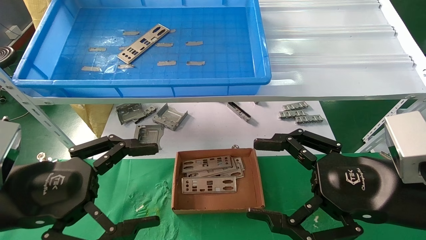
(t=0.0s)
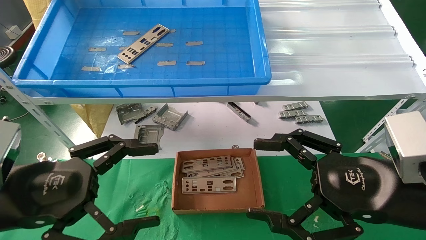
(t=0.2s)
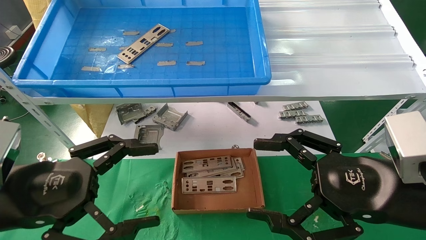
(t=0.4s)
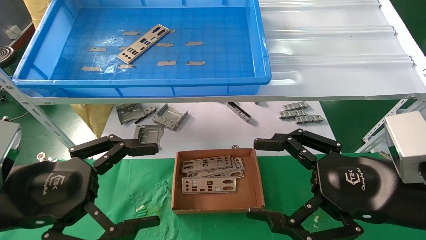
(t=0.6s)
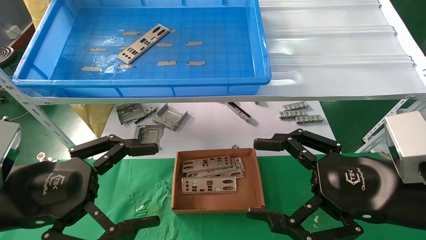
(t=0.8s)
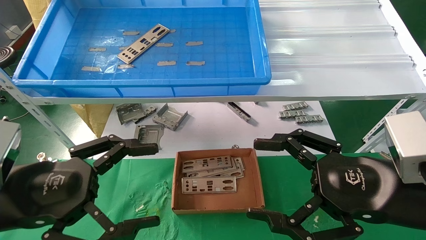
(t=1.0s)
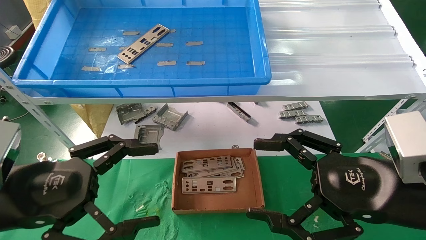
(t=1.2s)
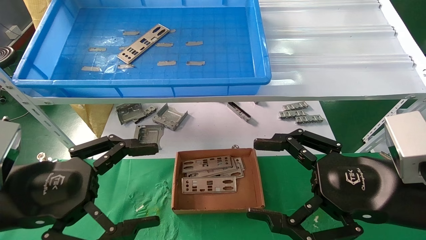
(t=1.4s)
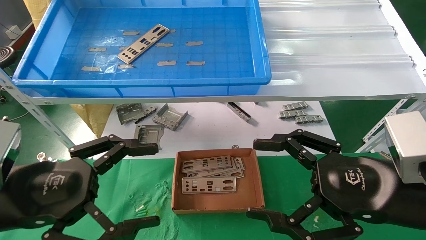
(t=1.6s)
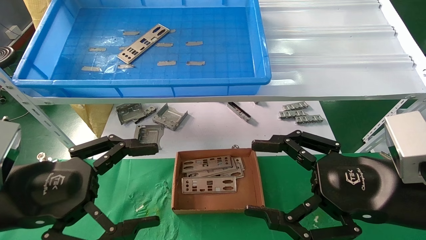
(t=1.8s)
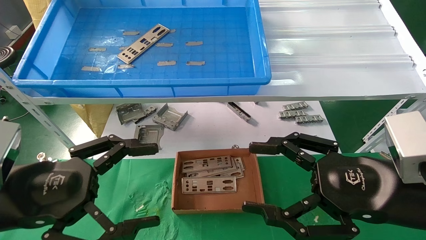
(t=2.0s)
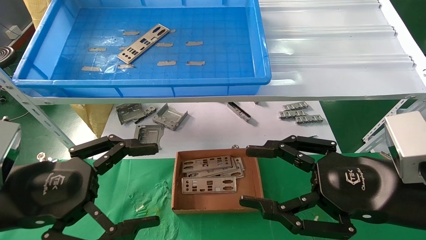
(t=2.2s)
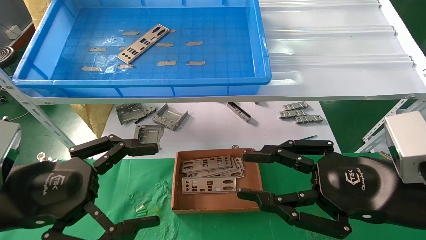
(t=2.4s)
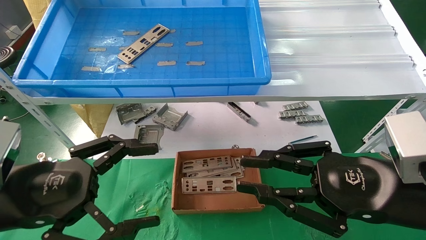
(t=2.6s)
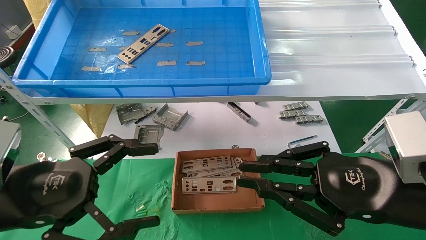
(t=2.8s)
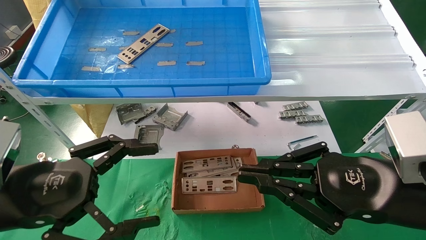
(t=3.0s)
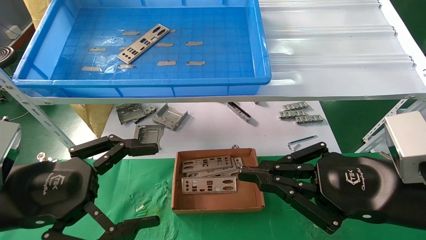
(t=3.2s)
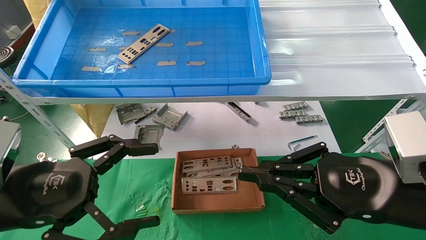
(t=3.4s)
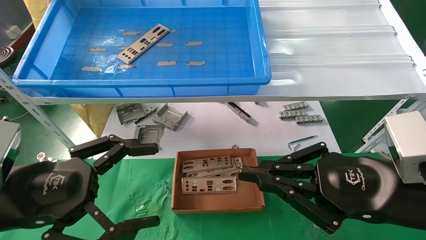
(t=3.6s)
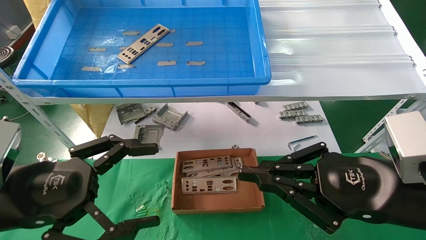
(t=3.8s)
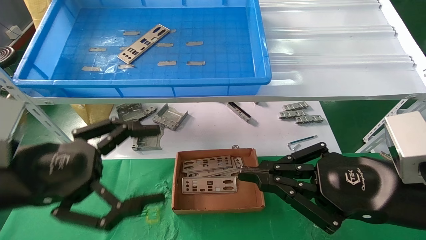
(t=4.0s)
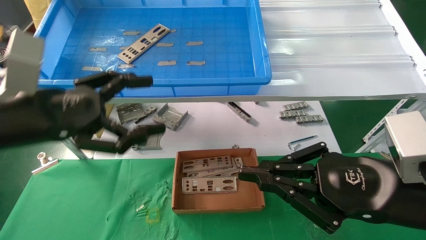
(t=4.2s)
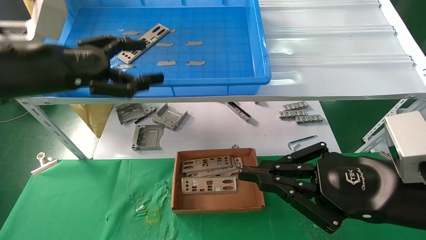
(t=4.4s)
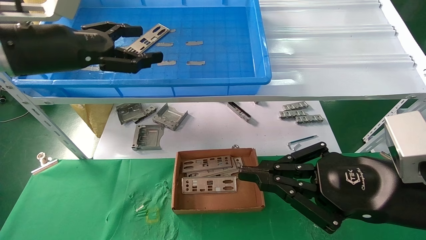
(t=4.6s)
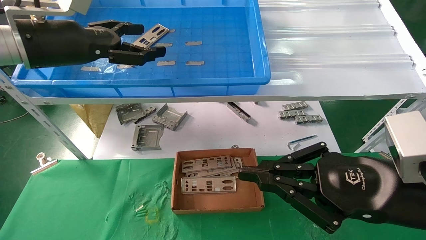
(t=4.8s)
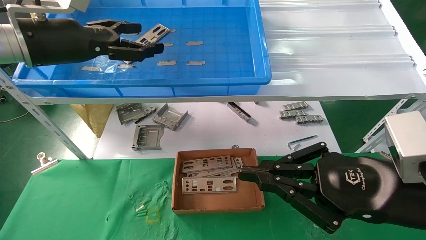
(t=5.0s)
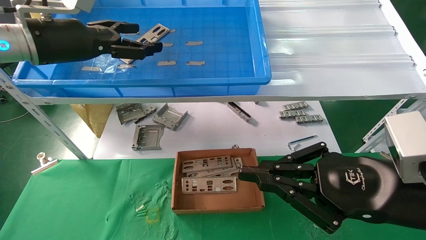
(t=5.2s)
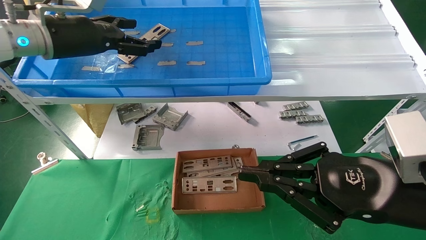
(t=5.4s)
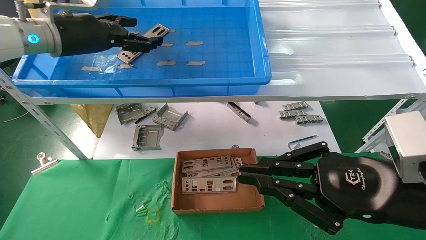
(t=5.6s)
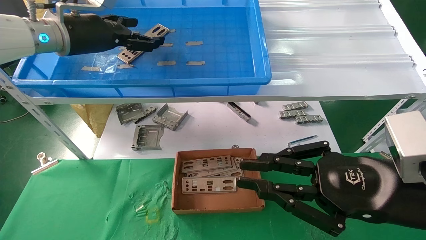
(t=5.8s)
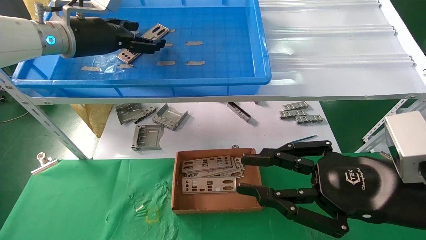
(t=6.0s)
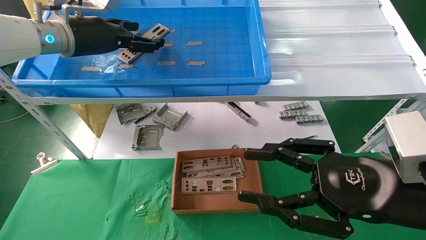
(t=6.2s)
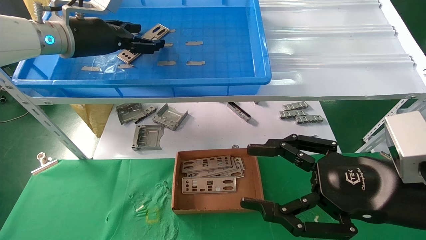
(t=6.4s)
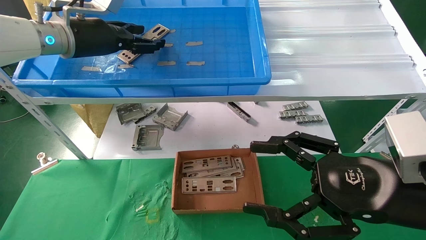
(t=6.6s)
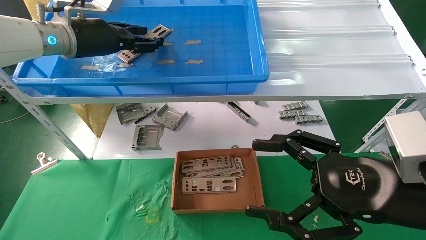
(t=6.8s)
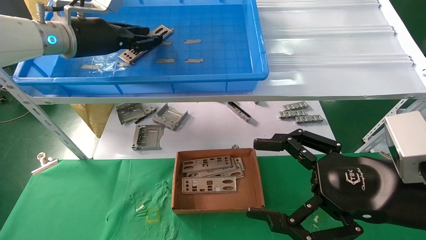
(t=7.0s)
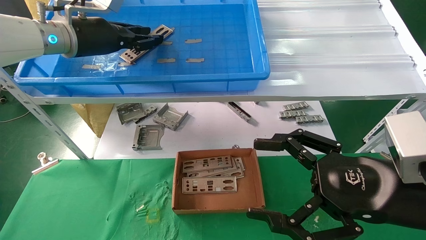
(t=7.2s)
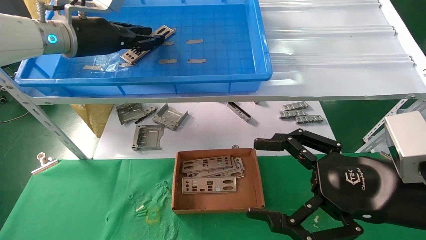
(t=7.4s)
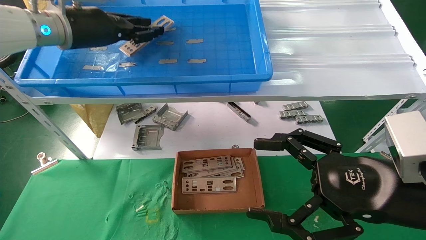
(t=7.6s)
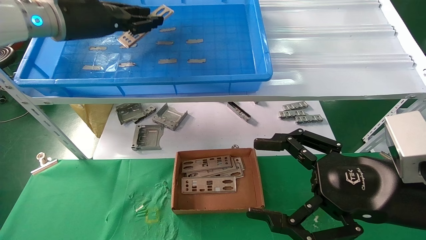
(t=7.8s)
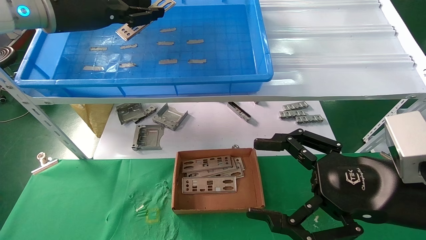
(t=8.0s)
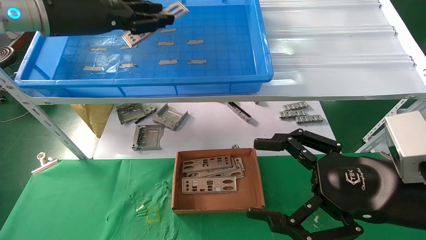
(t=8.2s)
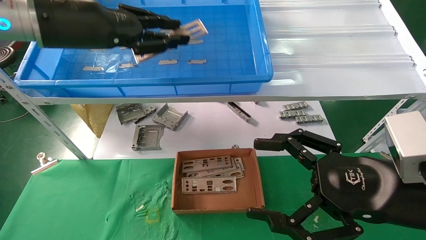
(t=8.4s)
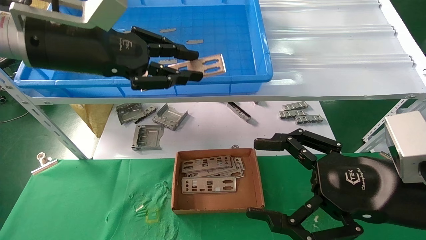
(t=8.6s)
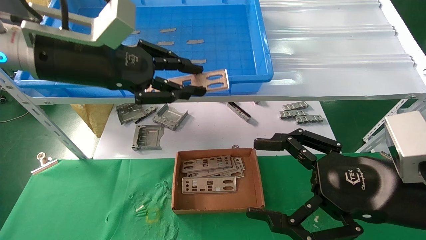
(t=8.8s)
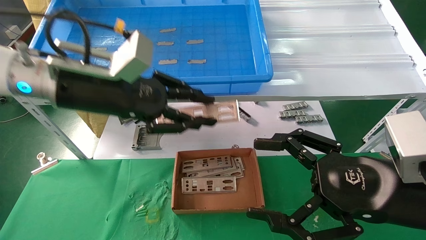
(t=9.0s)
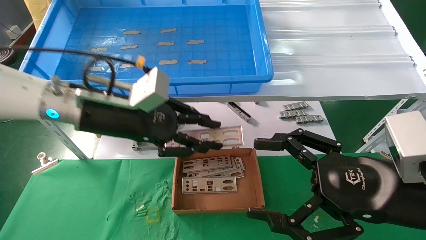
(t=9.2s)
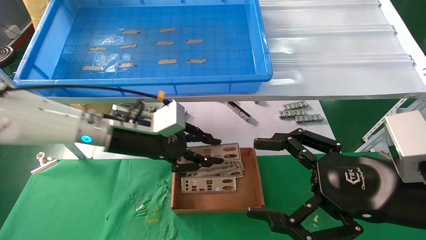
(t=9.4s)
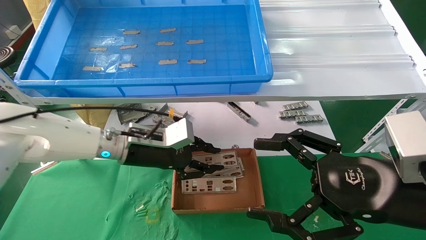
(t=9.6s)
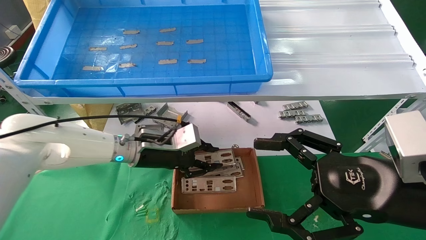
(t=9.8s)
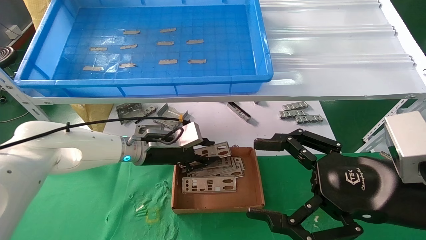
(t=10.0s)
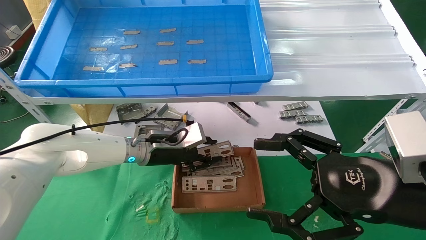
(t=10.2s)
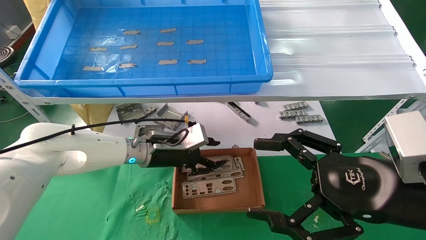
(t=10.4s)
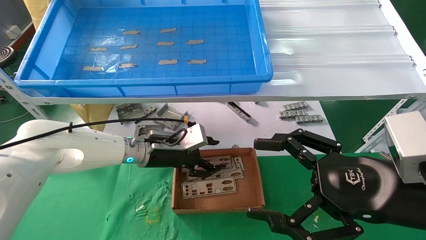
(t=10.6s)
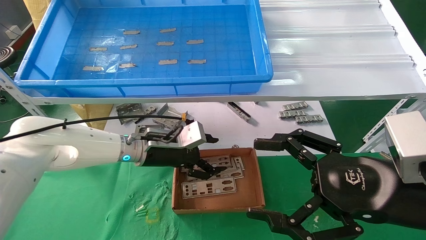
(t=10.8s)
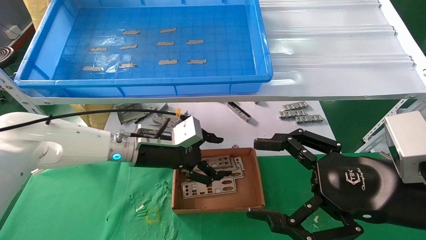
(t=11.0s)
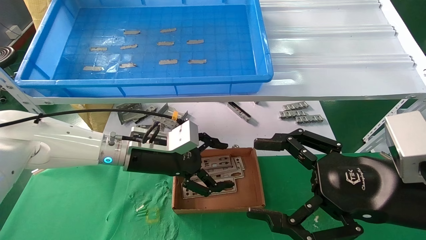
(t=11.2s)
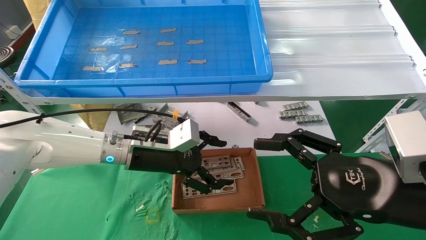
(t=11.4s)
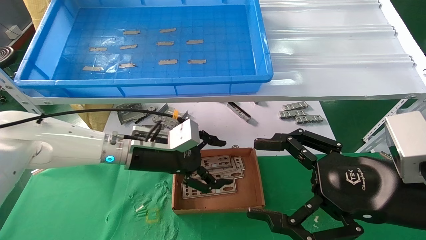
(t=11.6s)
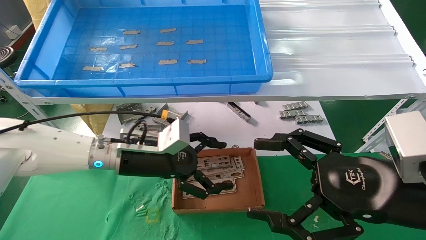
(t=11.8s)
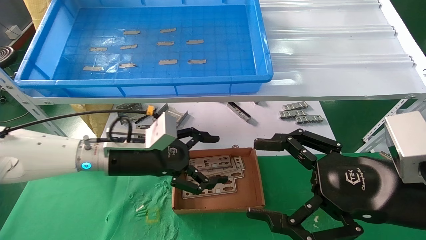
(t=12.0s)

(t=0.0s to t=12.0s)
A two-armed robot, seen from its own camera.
Task of the whole recording: pick up the parts on the tray and put them in the cardboard box.
Step, t=4.4s - t=7.0s: Pick up the IO bracket from the container box.
Step, t=7.2s - t=10.4s: Place the IO bracket into the ingredient slot.
t=0.0s - t=1.6s: Both grippers stay put.
t=1.6s - t=3.0s: The right gripper closes up.
t=3.0s - t=4.4s: The left gripper shifts about 15 cm upward and forward.
t=4.4s - t=6.0s: The left gripper goes some 15 cm forward and upward.
t=6.0s - t=7.6s: The right gripper opens its fingers; the left gripper closes its fingers.
t=7.6s - t=9.0s: The left gripper shifts about 15 cm backward, downward and to the right.
t=9.0s - t=10.4s: The left gripper travels downward and forward by about 20 cm.
t=10.4s - t=12.0s: The left gripper shifts approximately 5 cm backward, and opens.

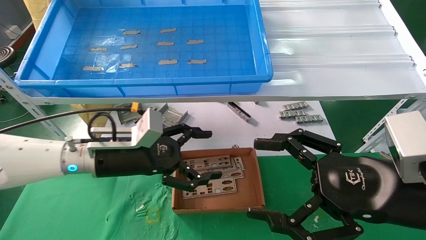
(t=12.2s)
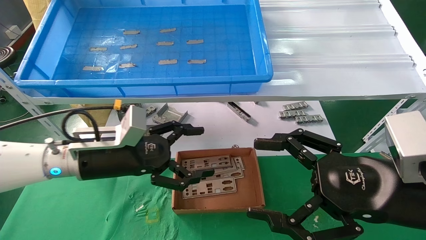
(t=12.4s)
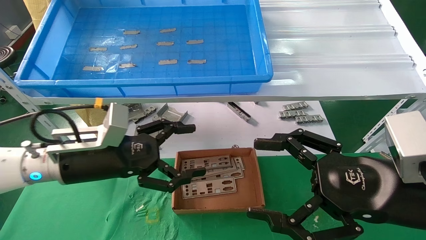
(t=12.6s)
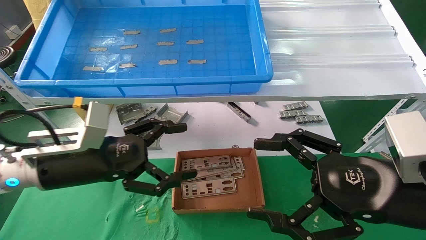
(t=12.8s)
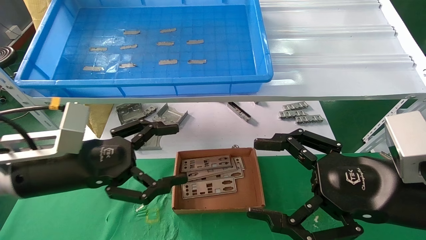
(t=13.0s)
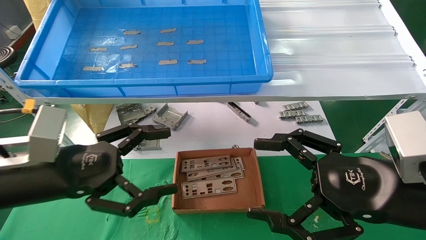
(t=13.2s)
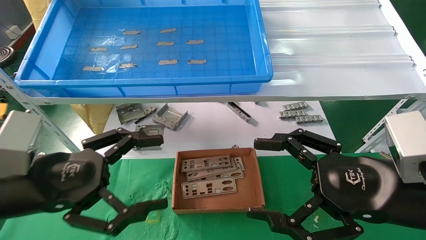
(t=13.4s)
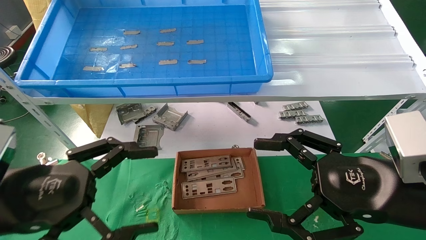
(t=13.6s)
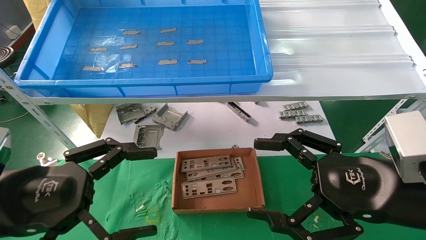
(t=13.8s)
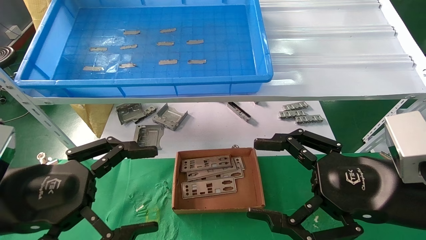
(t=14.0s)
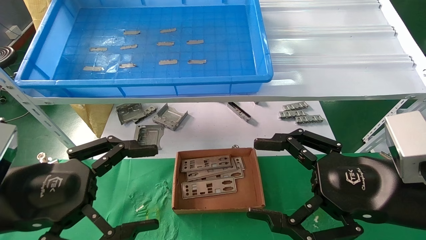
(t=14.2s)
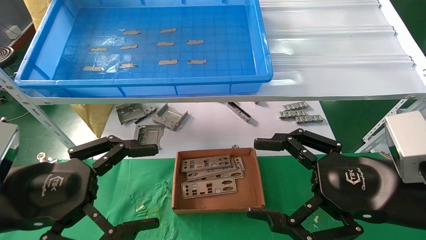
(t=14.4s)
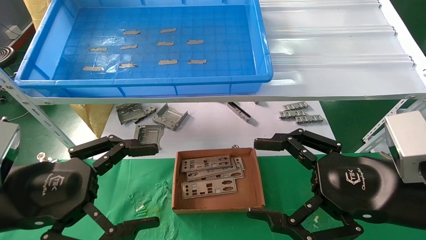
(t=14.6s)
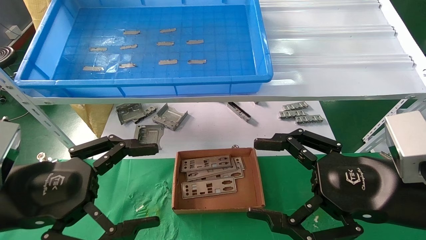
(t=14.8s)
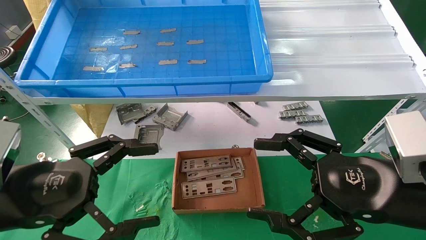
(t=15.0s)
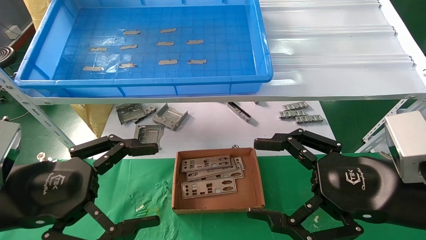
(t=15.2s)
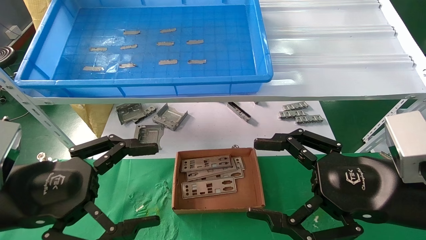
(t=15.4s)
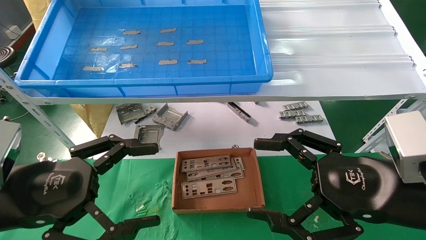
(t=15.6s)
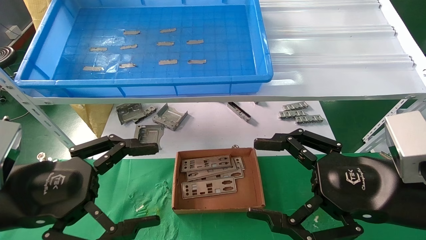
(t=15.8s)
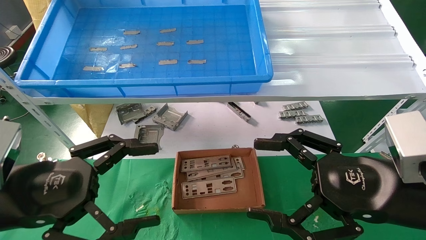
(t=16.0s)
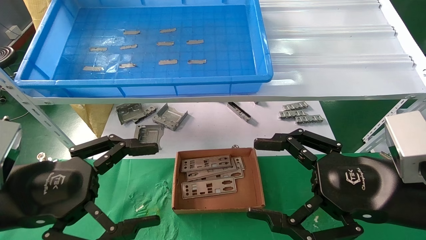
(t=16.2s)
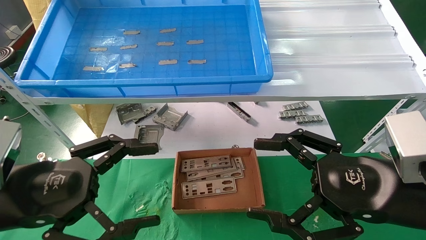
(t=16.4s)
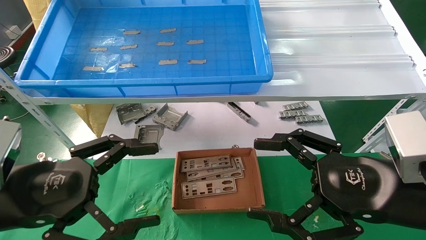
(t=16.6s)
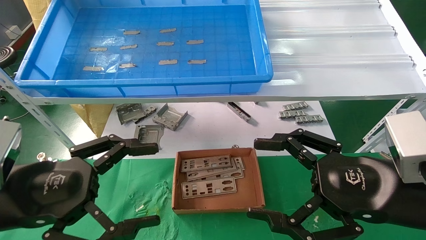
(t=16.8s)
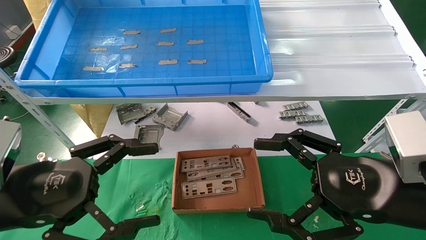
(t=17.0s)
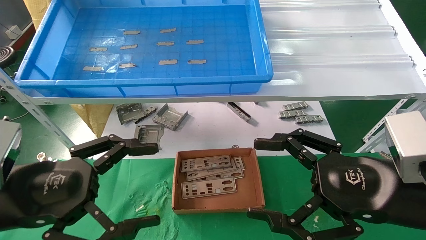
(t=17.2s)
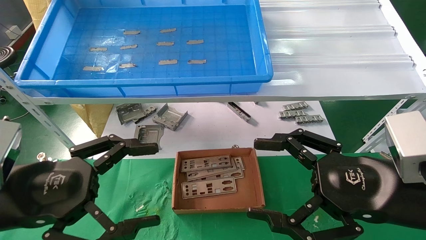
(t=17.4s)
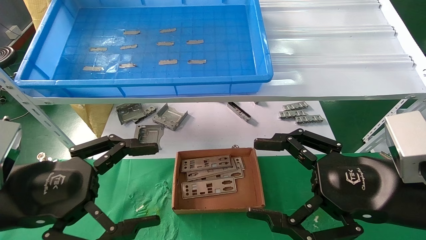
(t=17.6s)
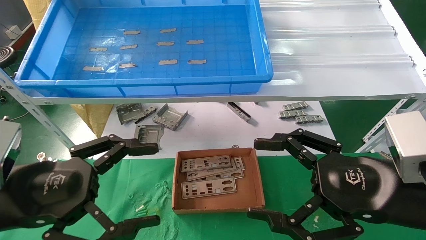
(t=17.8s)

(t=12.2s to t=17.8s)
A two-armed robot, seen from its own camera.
Task of the whole recording: pick up the parts on the tray and put them in the cardboard box.
t=12.2s - t=13.6s: The left gripper moves backward and to the left, about 20 cm.
t=13.6s - t=17.8s: Both grippers stay put.
